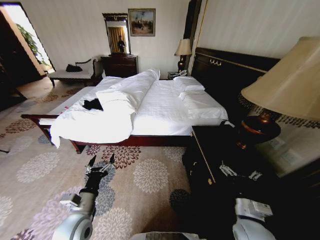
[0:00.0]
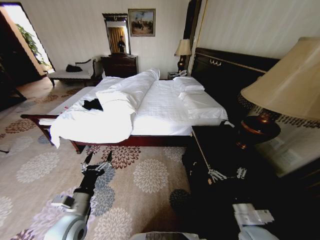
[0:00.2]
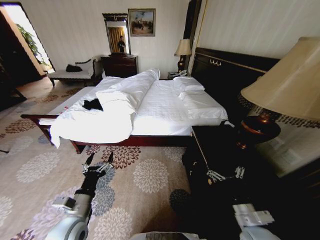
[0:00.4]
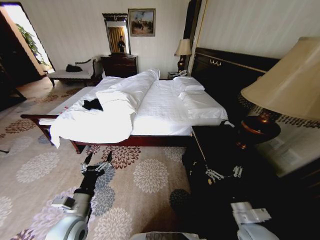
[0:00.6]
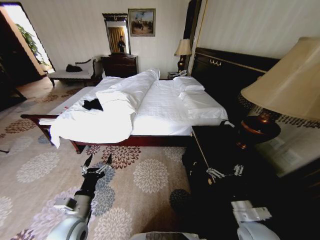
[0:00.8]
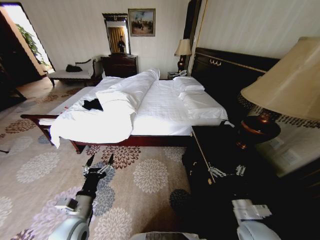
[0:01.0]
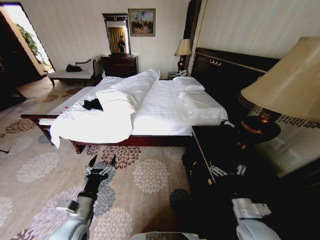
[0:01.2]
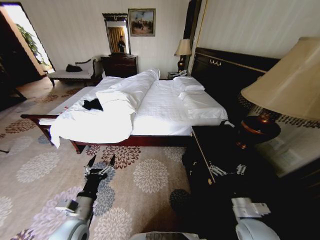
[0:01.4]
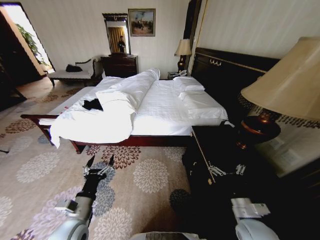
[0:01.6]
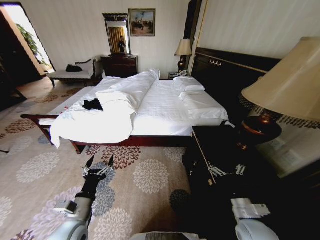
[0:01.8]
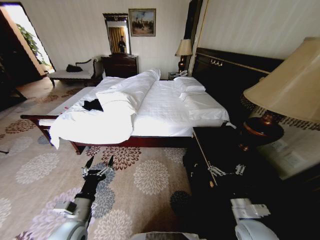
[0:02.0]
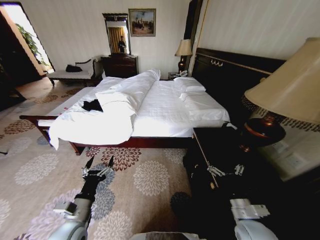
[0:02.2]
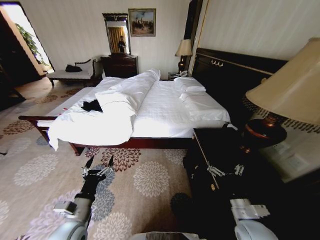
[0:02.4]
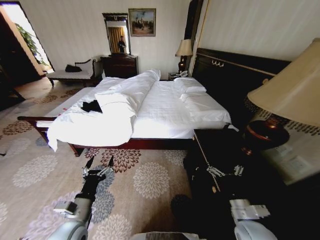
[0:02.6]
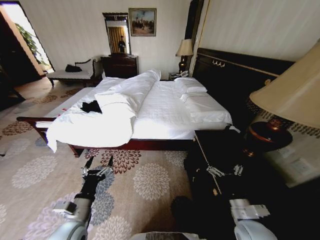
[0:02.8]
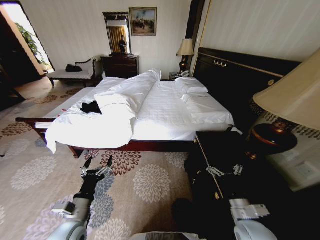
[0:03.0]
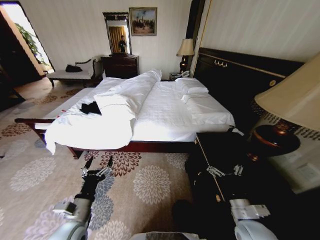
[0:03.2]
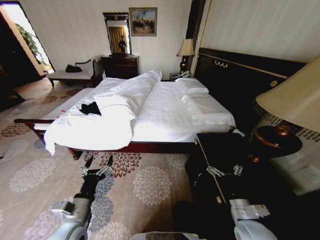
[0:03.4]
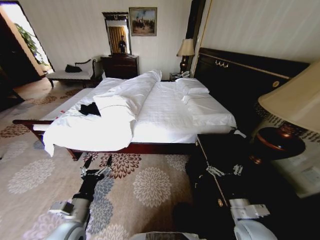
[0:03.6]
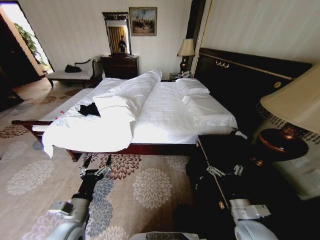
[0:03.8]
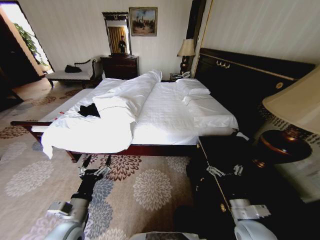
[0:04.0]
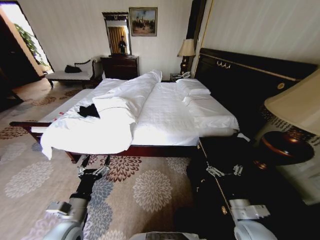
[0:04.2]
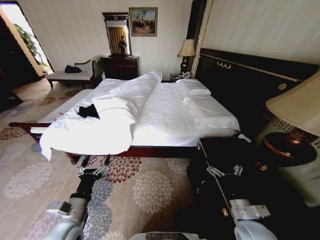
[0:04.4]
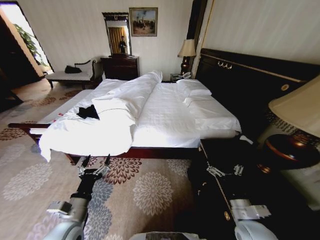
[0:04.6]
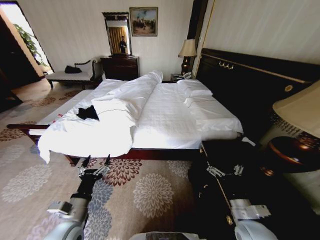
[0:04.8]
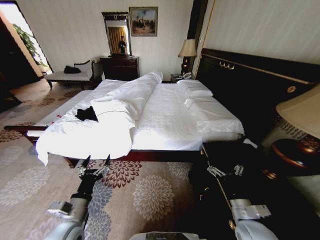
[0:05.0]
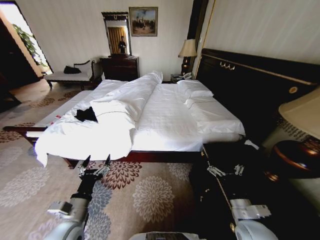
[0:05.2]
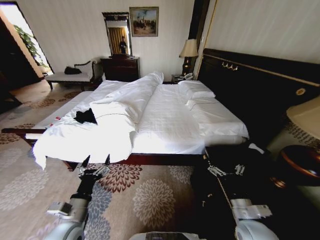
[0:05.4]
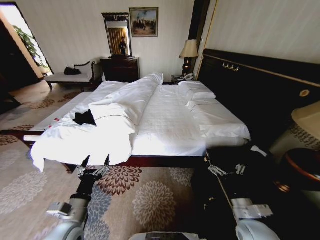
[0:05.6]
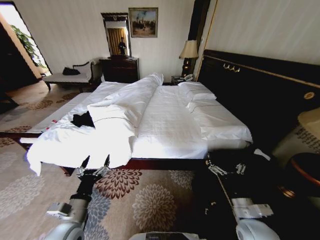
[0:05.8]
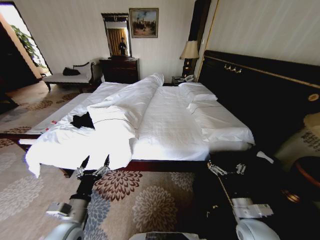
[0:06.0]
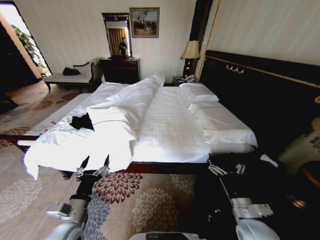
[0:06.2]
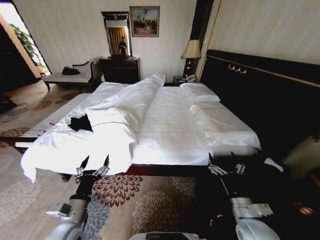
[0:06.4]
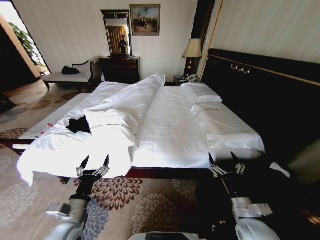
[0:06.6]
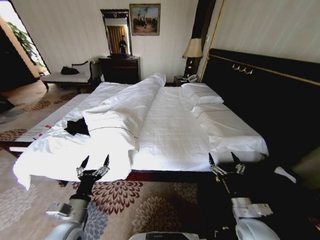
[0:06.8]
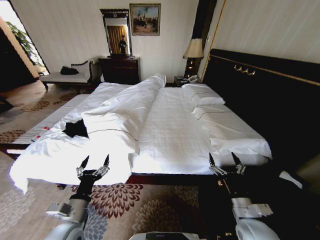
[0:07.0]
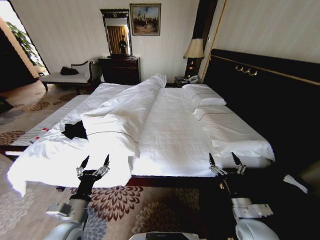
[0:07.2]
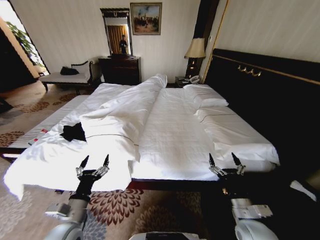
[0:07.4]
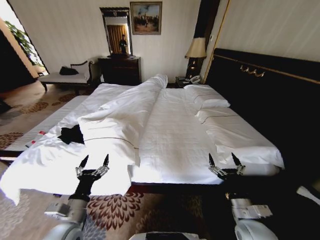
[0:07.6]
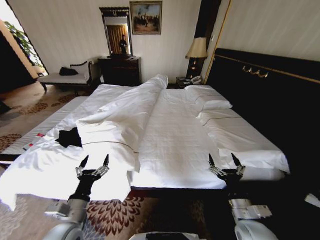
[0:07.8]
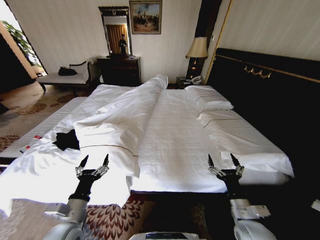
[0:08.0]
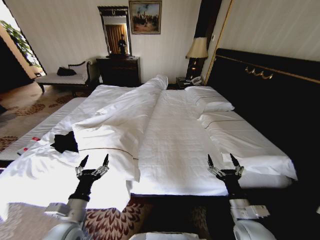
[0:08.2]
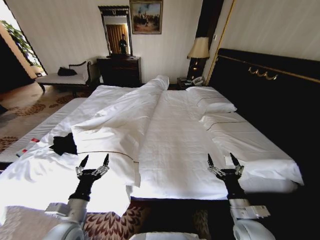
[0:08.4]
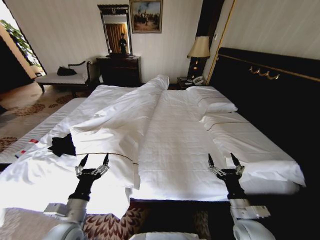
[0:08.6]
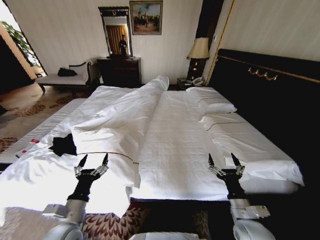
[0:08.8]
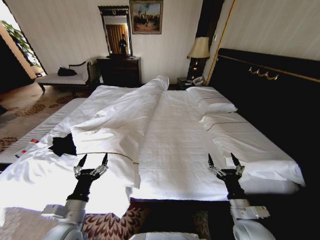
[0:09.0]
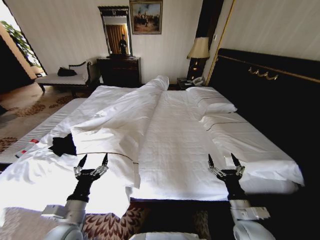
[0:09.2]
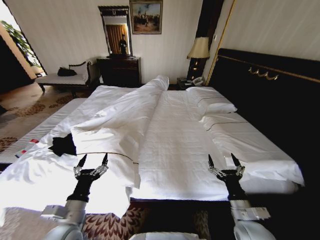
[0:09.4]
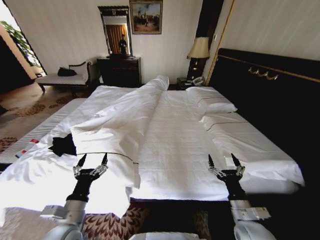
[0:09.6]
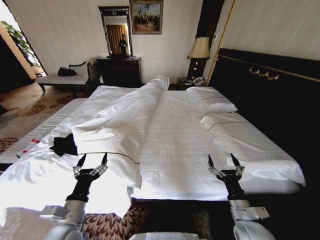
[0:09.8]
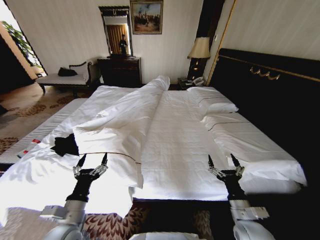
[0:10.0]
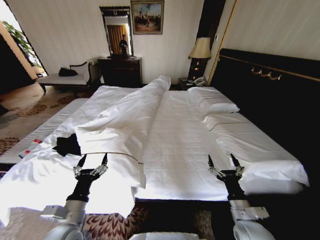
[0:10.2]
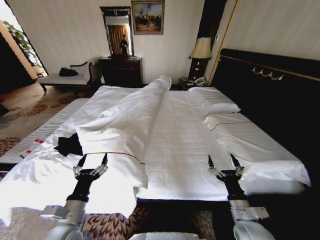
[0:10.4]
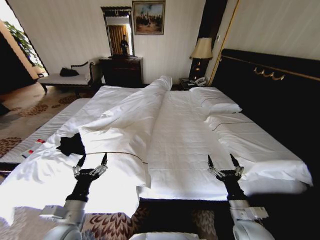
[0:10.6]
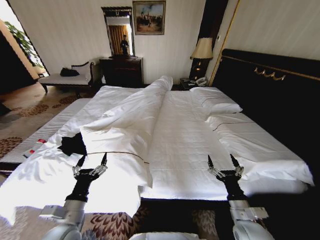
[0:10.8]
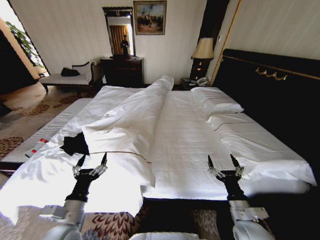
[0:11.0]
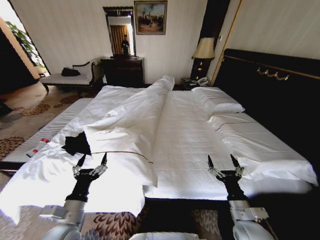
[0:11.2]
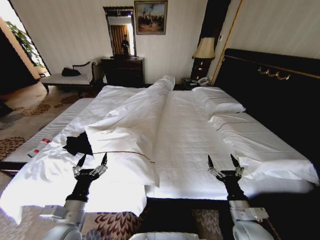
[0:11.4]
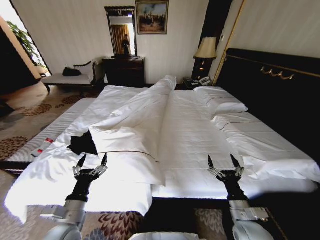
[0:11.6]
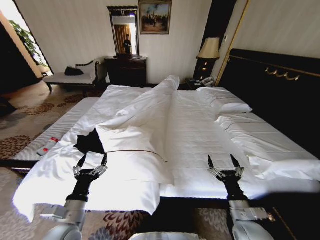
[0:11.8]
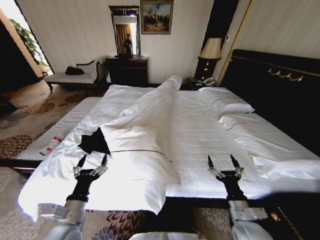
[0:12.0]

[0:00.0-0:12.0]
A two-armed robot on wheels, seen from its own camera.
Task of the whole recording: Fold the clothes on the bed.
0:01.6 to 0:03.0: The two grippers keep their place.
0:03.0 to 0:04.4: Both grippers stay put.
0:09.0 to 0:10.4: The two grippers keep their place.

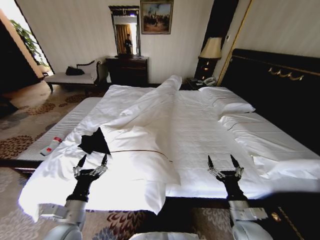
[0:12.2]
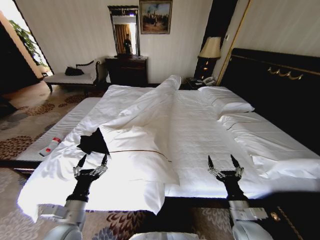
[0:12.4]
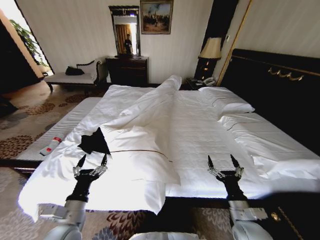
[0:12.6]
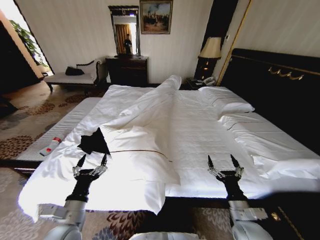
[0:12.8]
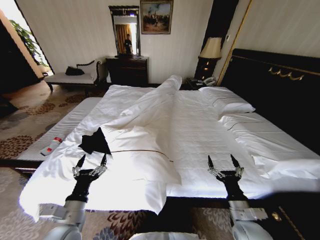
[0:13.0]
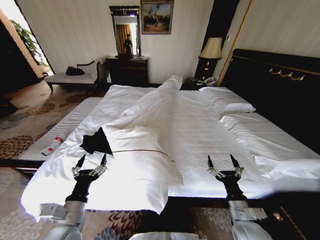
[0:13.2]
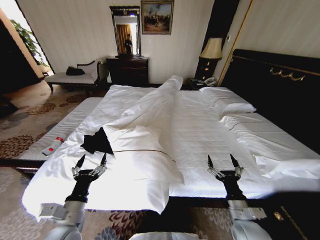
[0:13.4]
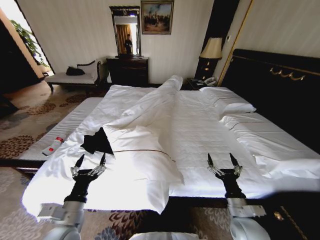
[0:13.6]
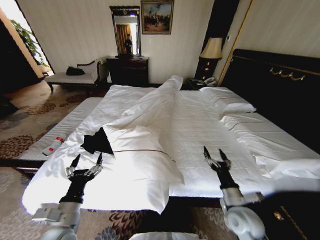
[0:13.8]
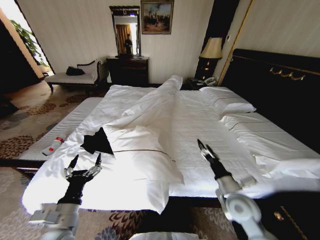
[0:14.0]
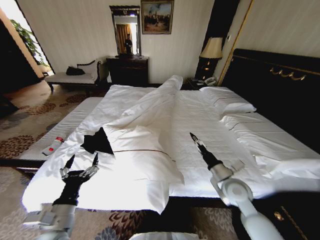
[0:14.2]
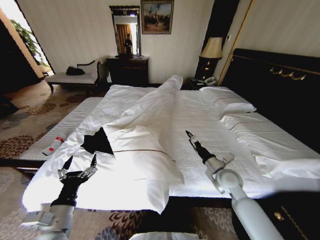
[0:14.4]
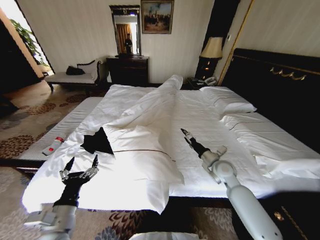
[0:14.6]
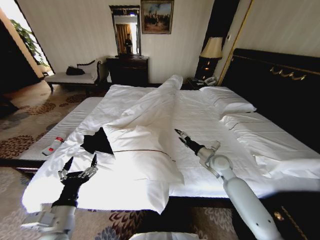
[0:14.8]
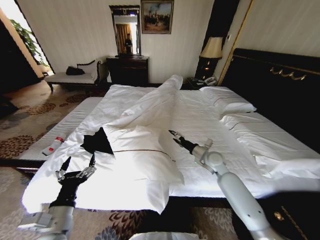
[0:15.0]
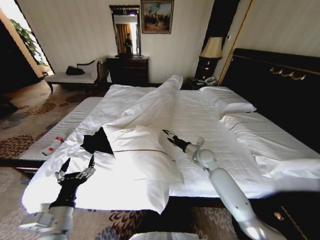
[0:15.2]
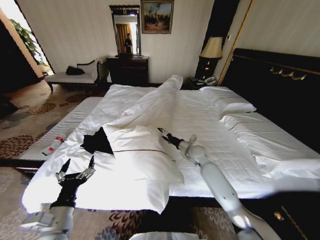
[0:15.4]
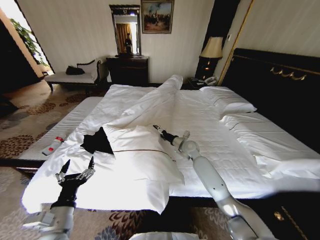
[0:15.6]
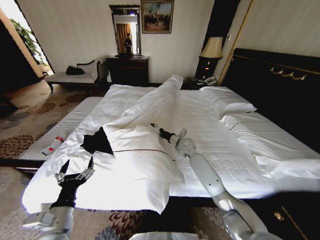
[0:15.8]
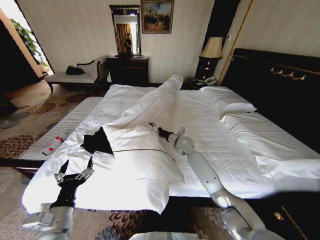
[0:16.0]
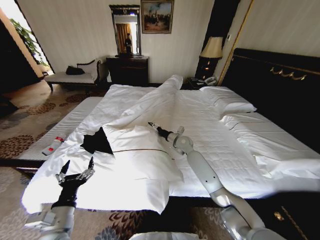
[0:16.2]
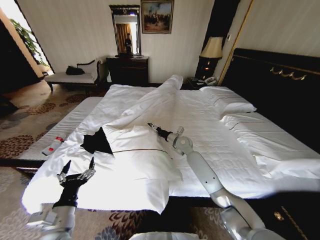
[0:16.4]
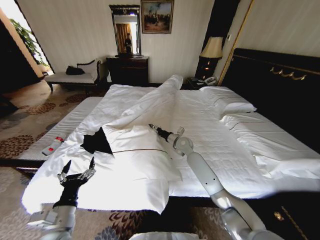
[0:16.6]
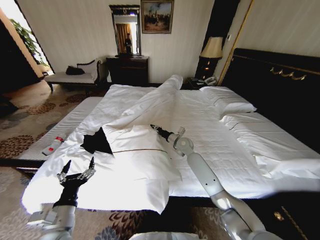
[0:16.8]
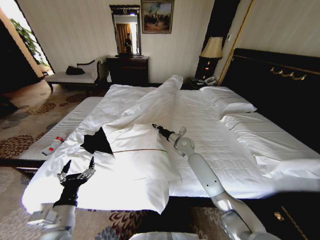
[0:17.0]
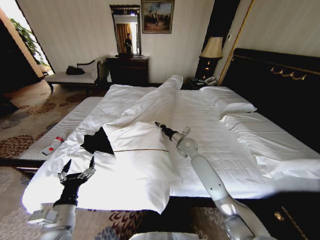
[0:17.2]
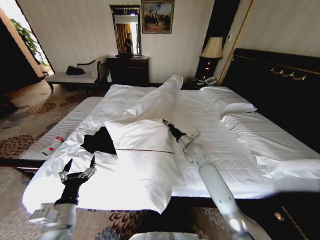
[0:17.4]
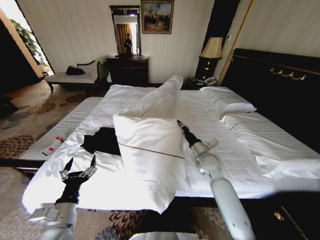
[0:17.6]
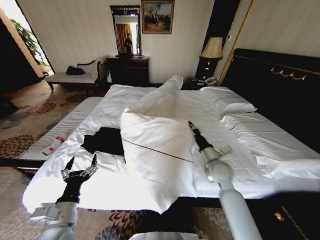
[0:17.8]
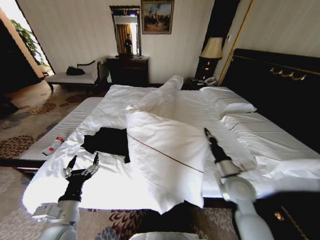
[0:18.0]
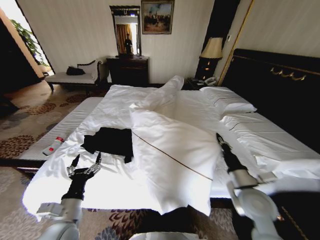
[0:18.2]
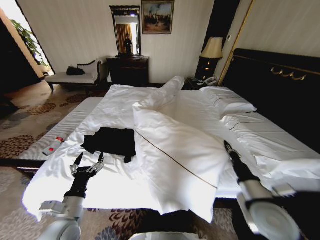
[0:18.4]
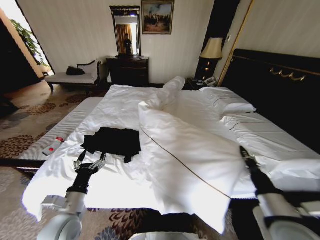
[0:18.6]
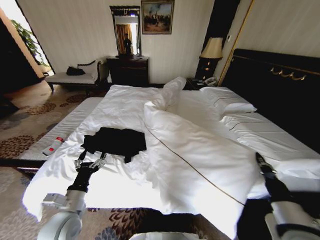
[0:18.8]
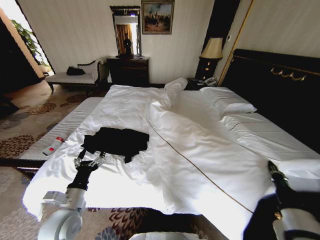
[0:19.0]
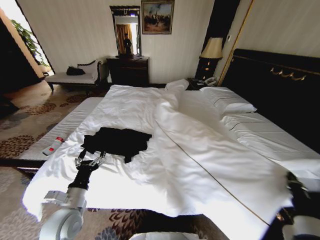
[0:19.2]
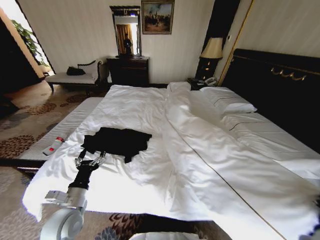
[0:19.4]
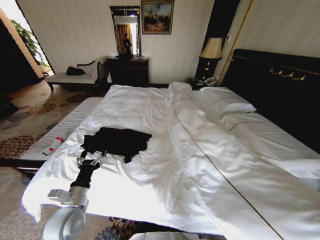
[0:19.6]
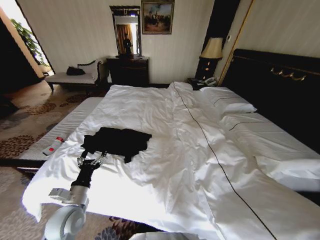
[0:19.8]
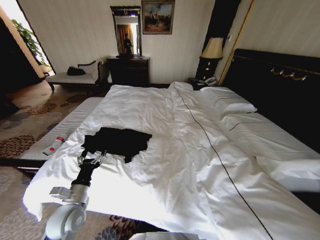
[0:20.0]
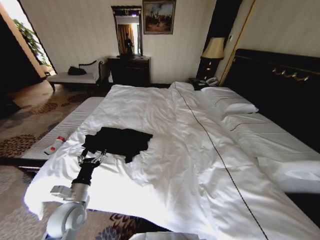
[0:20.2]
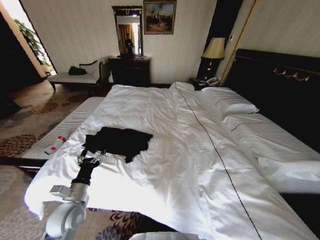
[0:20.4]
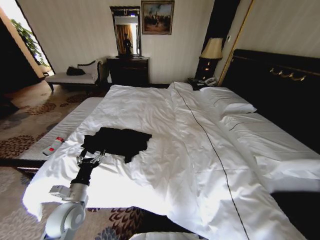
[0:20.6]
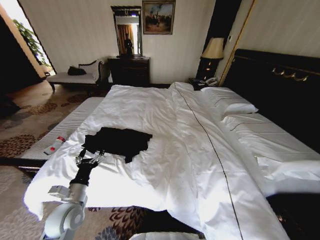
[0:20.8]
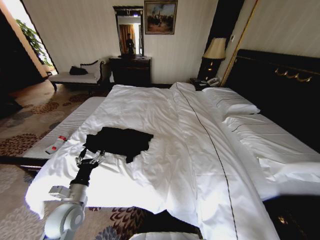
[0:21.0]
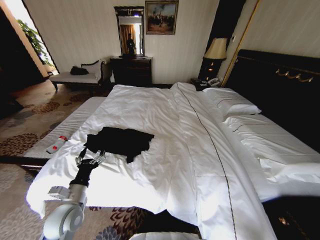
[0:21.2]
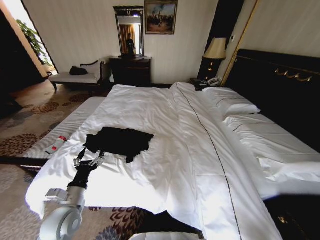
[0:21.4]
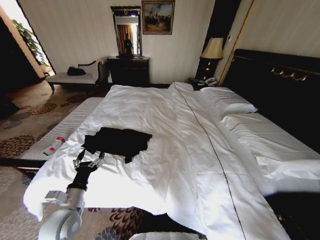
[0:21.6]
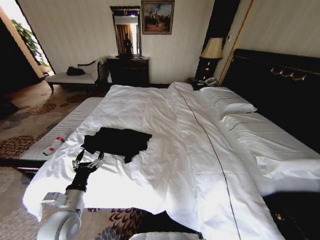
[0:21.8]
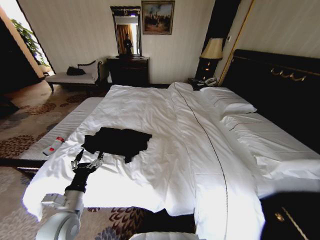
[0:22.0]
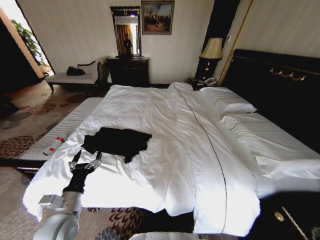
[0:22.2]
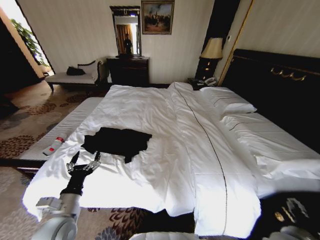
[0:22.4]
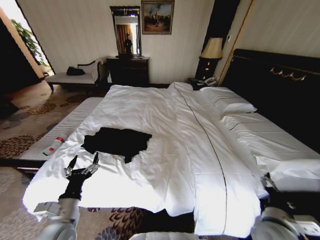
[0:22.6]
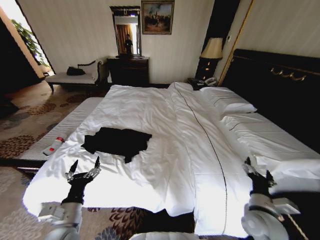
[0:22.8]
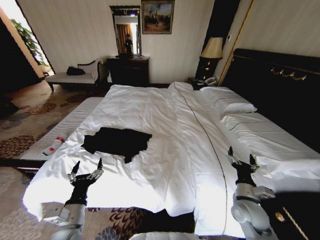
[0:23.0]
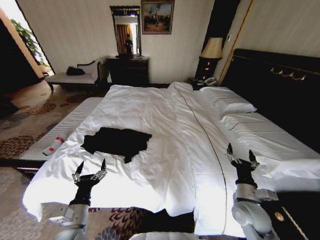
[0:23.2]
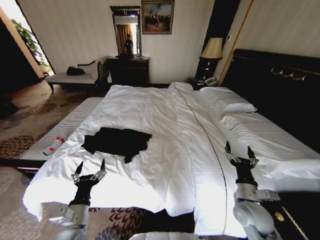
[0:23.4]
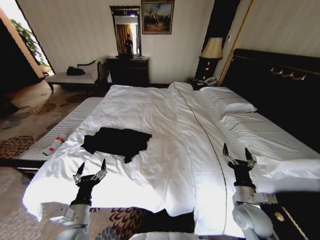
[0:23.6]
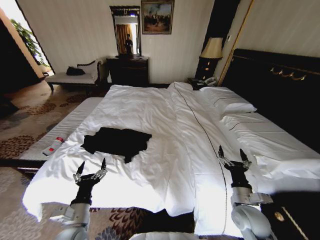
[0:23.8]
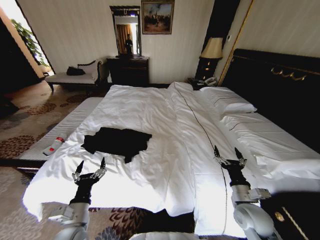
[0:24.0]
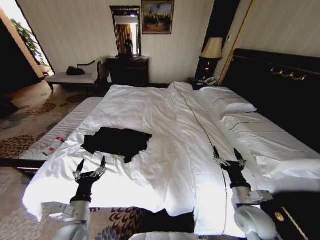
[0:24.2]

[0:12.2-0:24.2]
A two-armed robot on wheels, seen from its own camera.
Task of the whole recording: Fold the clothes on the bed.
0:13.8 to 0:15.2: The right gripper heads forward, covering roughly 25 cm.
0:15.2 to 0:16.6: The right gripper shifts roughly 10 cm to the left and forward, and closes up.
0:16.6 to 0:18.2: The right gripper shifts approximately 35 cm backward and to the right, and closes up.
0:18.2 to 0:19.8: The right gripper shifts approximately 15 cm backward. Meanwhile the left gripper shifts by some 5 cm.
0:19.8 to 0:21.2: The right gripper travels downward by some 25 cm.
0:21.2 to 0:22.6: The left gripper travels backward by approximately 5 cm; the right gripper heads upward and forward, covering roughly 20 cm, and opens its fingers.
0:22.6 to 0:24.2: The right gripper changes place by roughly 5 cm.
